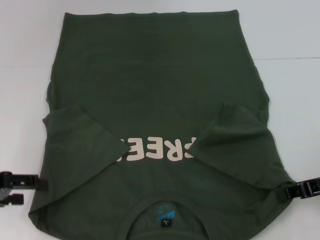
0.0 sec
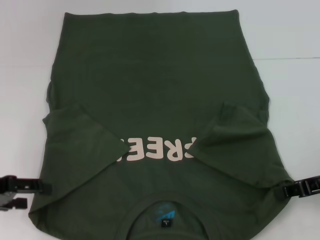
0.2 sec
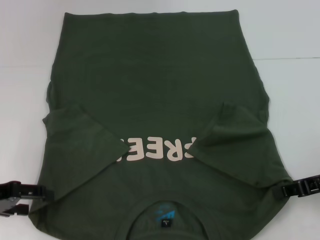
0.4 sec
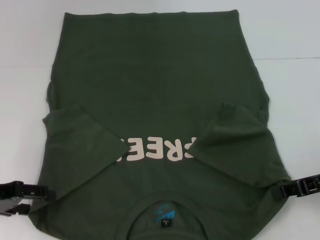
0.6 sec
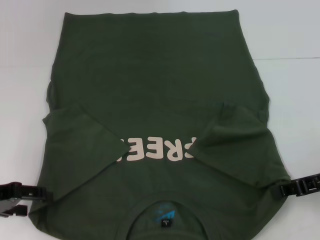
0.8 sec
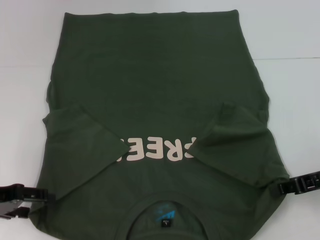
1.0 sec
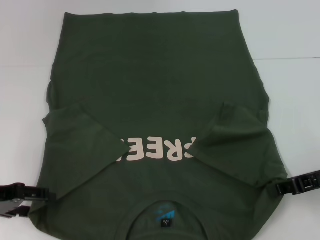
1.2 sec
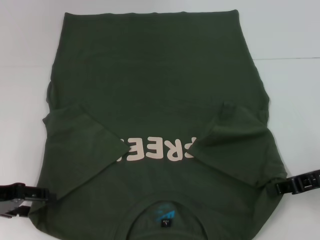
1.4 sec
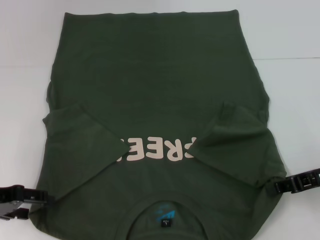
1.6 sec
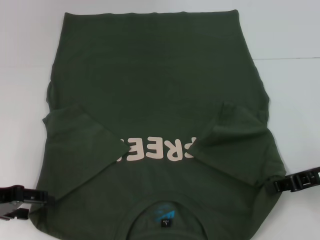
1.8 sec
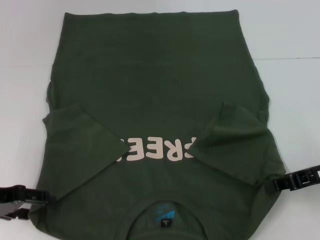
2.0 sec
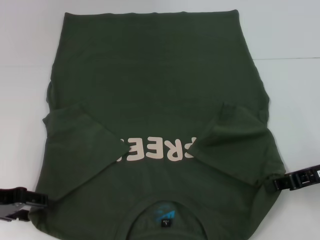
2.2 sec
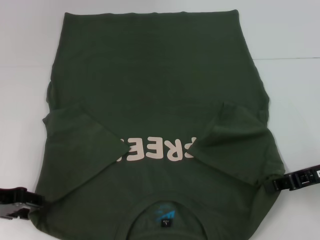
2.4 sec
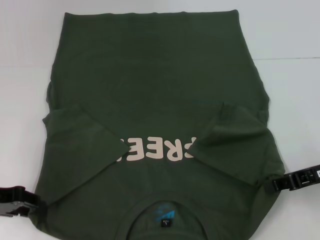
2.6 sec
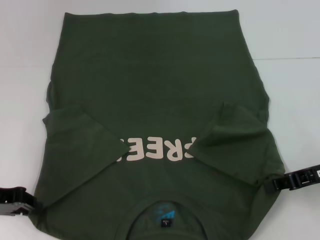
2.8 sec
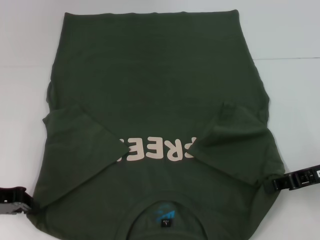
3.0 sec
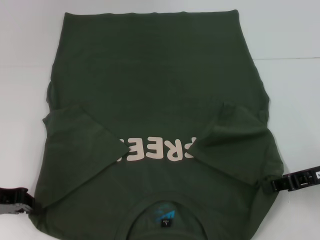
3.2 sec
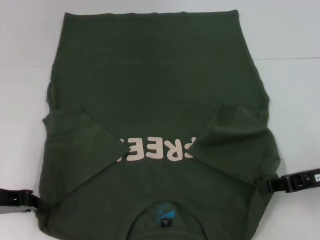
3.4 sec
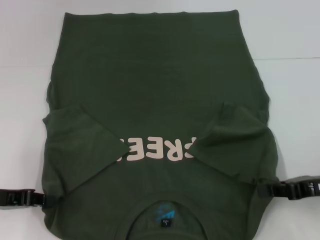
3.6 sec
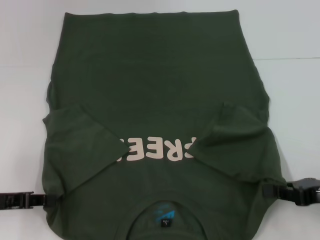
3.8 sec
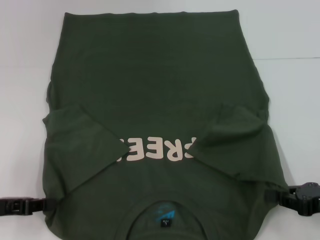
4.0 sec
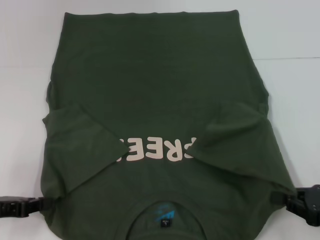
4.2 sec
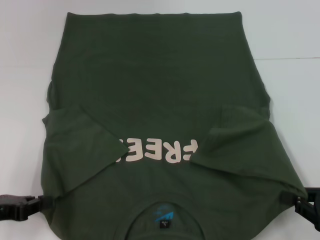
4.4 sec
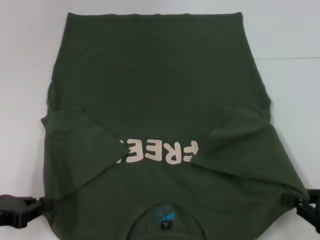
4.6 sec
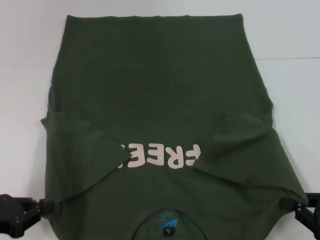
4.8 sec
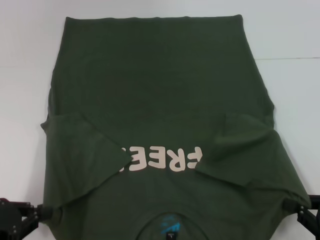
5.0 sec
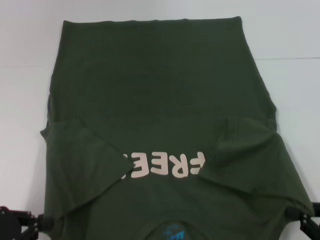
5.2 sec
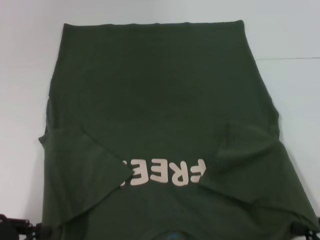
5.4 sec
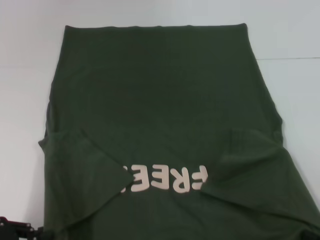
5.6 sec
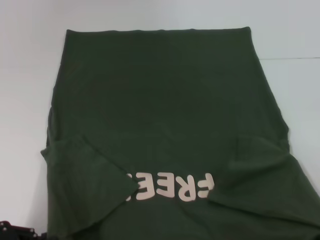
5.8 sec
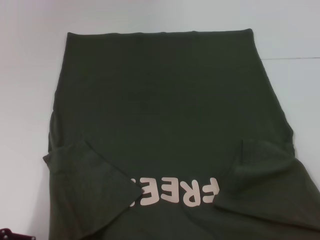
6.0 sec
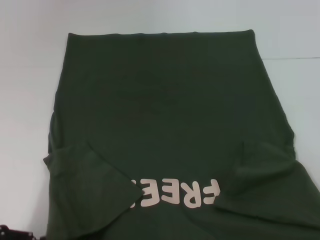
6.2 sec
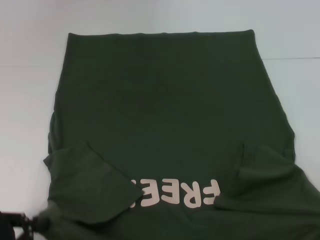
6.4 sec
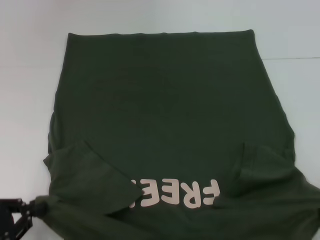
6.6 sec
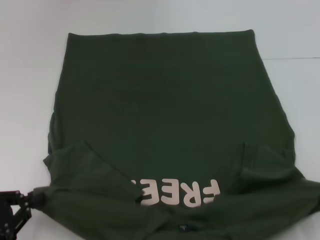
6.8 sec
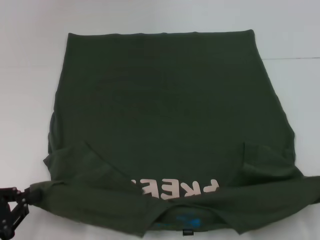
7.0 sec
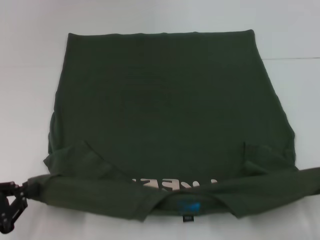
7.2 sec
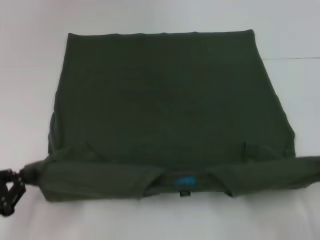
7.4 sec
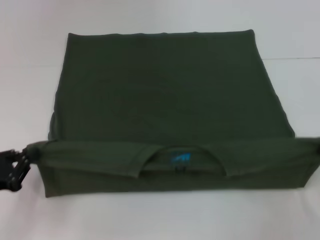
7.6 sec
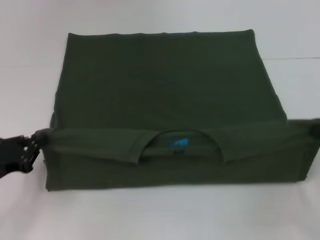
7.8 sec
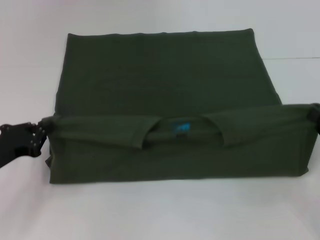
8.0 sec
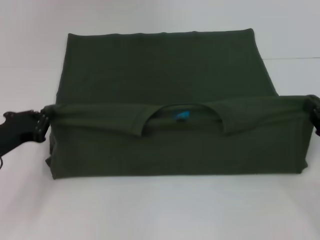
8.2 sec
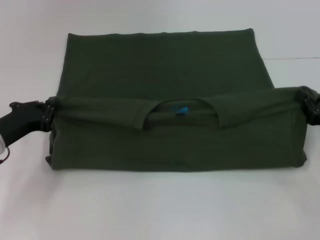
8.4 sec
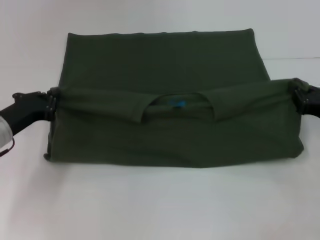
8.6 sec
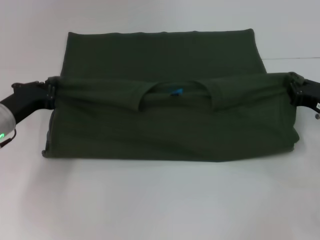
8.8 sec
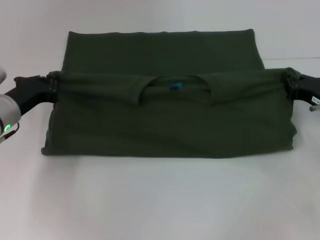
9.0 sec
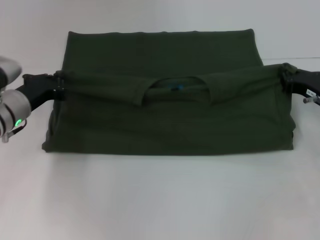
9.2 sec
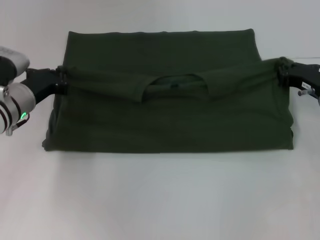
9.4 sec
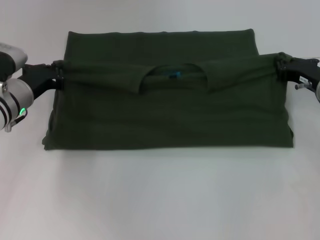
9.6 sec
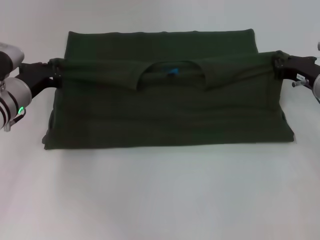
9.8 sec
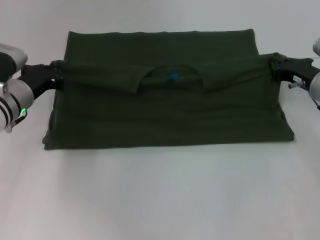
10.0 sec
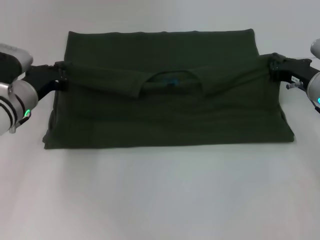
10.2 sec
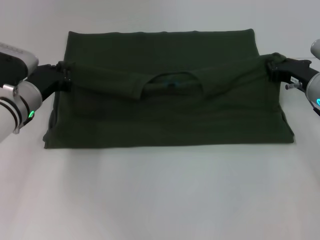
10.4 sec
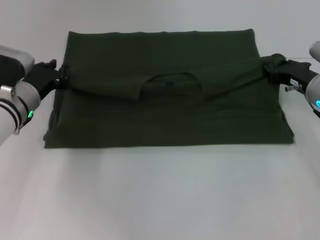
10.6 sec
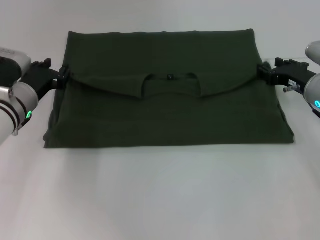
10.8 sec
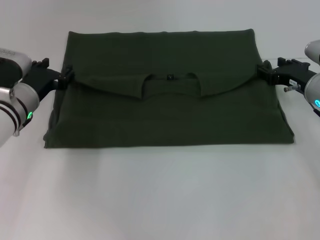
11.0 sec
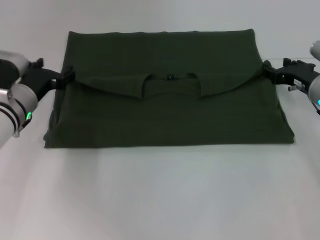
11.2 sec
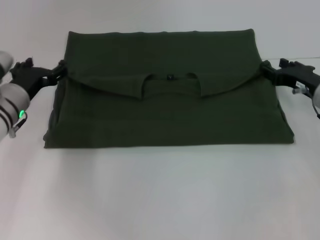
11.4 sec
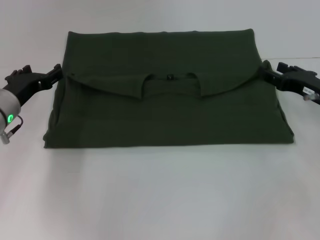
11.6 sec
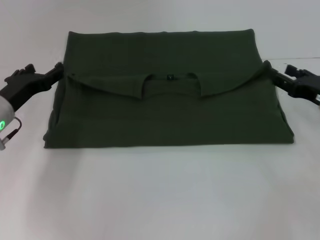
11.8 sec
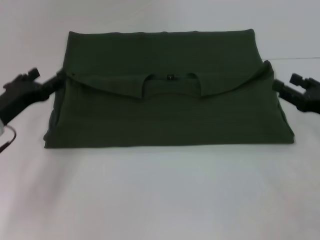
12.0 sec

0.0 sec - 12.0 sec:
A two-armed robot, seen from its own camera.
Step, 0.0 sec - 3.6 sec: Grab the bottom left corner with your left hand.
Step, 3.8 sec - 11.2 sec: Fold the clothes with your left hand.
Step, 3.8 sec - 11.2 sec: Fold the clothes with your right hand.
0.0 sec - 1.6 sec: The grippers stay close to where they were, moving slightly.
1.6 sec - 3.0 sec: The left gripper closes its fingers.
3.0 sec - 4.4 sec: The left gripper shifts by some 5 cm, while the right gripper heads backward and downward, covering about 10 cm.
4.4 sec - 6.0 sec: The right gripper moves backward, about 10 cm, while the left gripper shifts approximately 10 cm backward.
6.0 sec - 7.6 sec: The left gripper is displaced forward by some 5 cm. Meanwhile the right gripper is displaced forward by roughly 10 cm.
7.6 sec - 9.0 sec: The left gripper shifts approximately 15 cm forward and to the right; the right gripper goes about 20 cm forward.
9.0 sec - 10.4 sec: The right gripper changes place by about 5 cm.
10.4 sec - 12.0 sec: Both grippers travel together backward, some 10 cm. The left gripper opens up. The right gripper opens up.

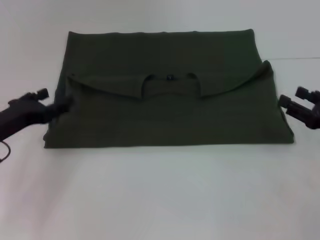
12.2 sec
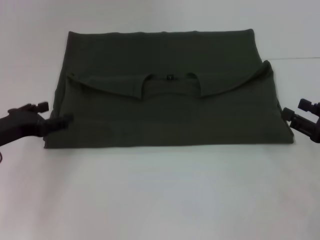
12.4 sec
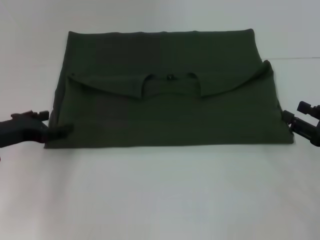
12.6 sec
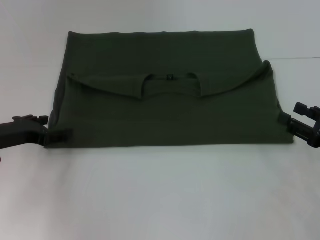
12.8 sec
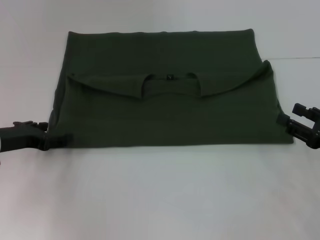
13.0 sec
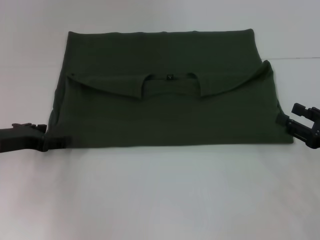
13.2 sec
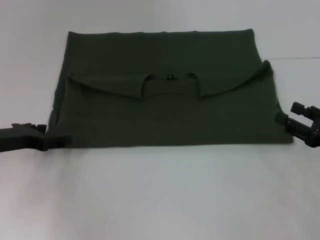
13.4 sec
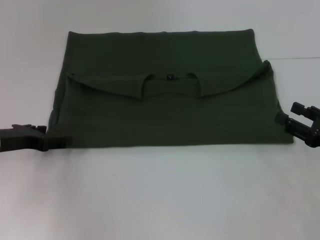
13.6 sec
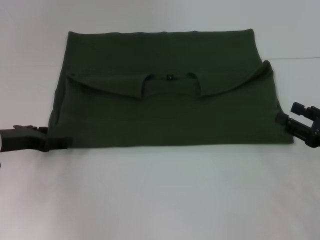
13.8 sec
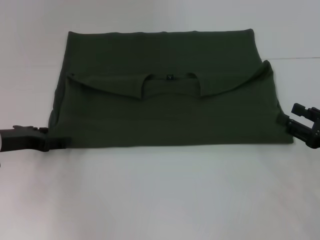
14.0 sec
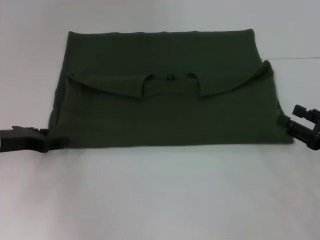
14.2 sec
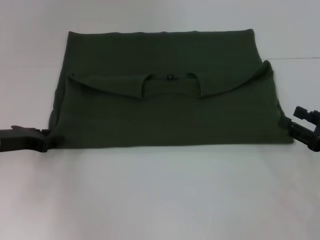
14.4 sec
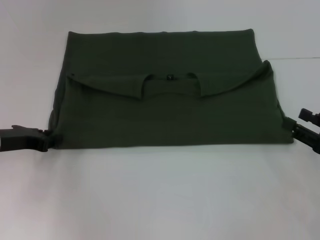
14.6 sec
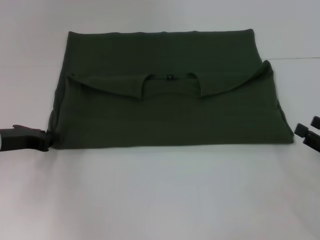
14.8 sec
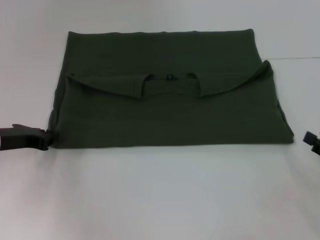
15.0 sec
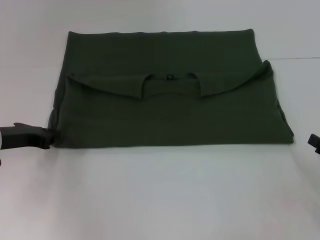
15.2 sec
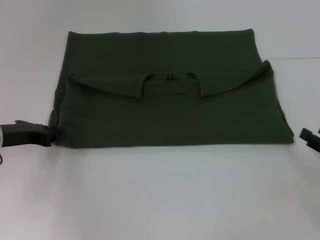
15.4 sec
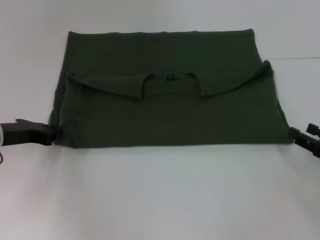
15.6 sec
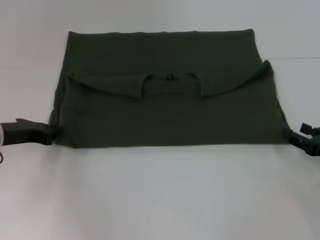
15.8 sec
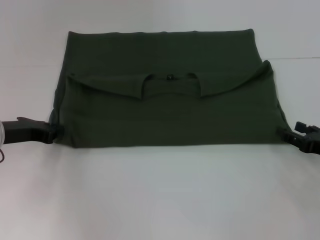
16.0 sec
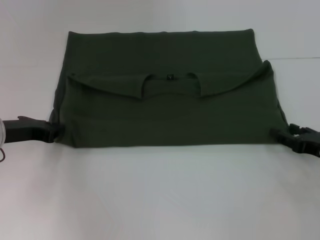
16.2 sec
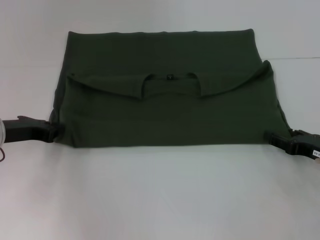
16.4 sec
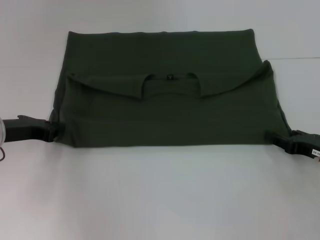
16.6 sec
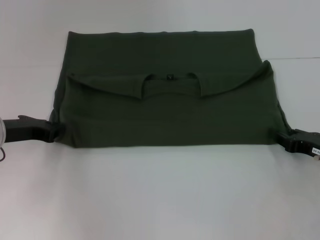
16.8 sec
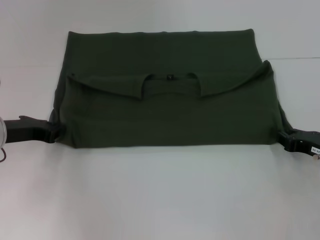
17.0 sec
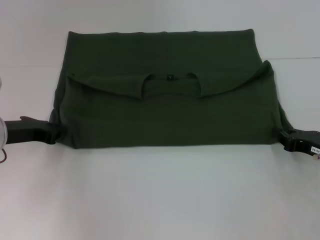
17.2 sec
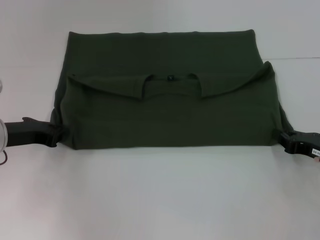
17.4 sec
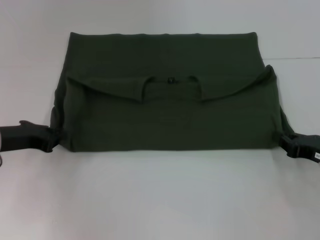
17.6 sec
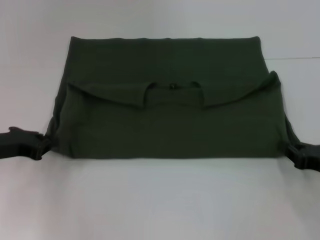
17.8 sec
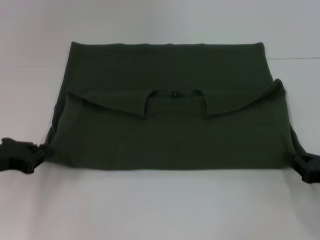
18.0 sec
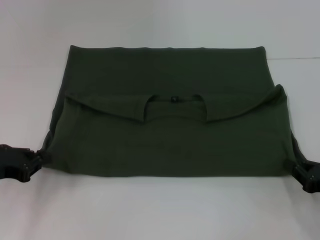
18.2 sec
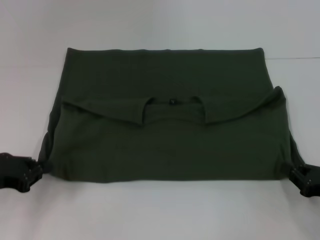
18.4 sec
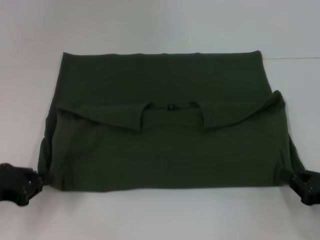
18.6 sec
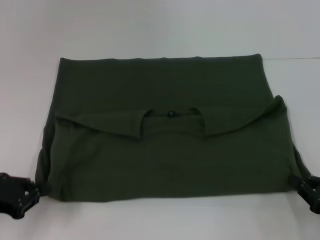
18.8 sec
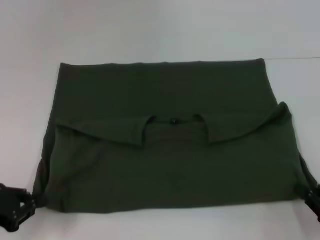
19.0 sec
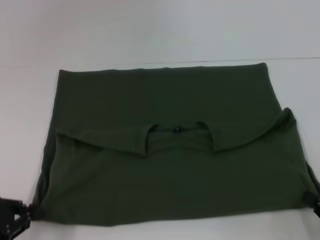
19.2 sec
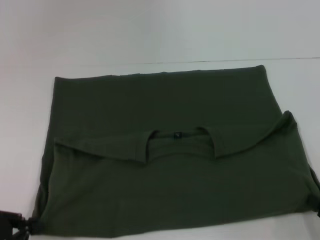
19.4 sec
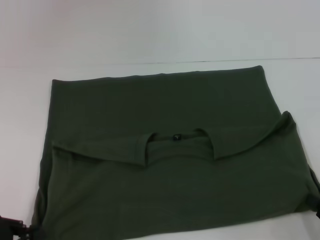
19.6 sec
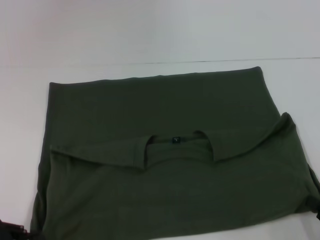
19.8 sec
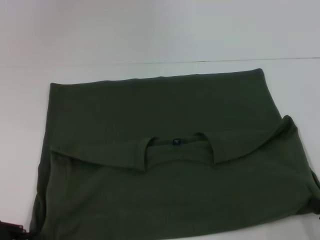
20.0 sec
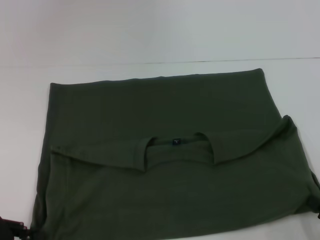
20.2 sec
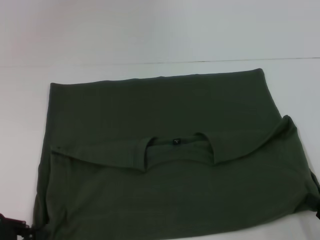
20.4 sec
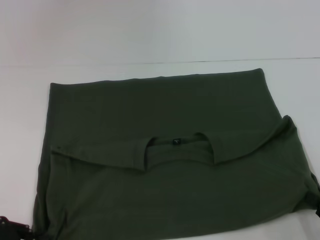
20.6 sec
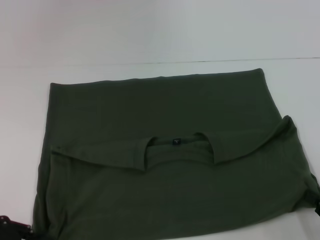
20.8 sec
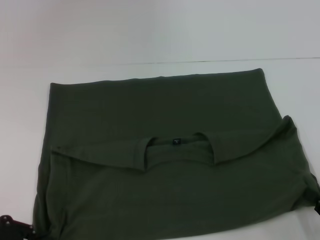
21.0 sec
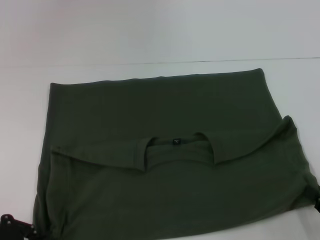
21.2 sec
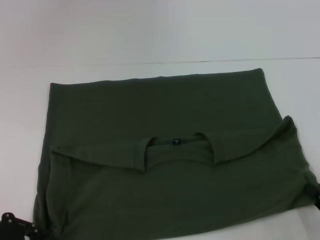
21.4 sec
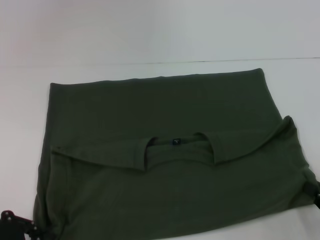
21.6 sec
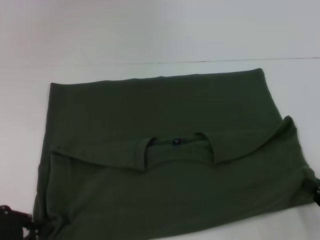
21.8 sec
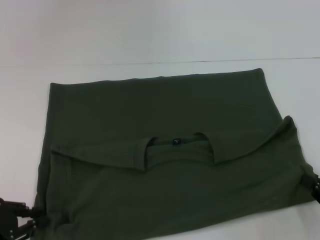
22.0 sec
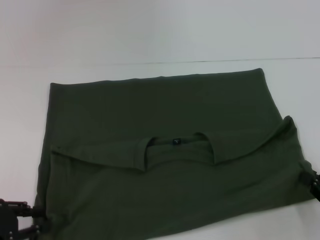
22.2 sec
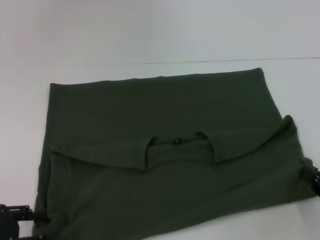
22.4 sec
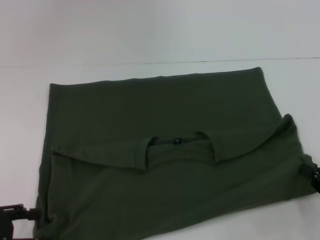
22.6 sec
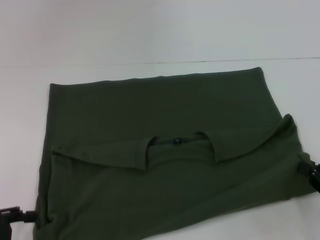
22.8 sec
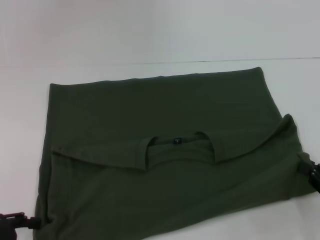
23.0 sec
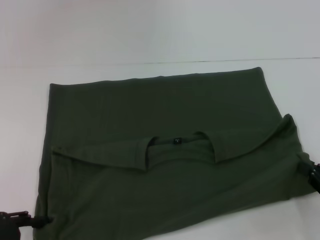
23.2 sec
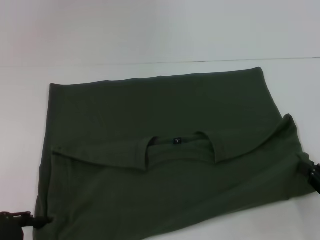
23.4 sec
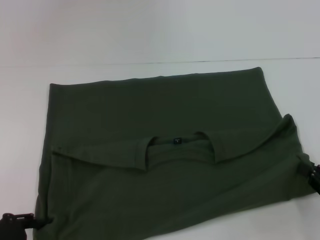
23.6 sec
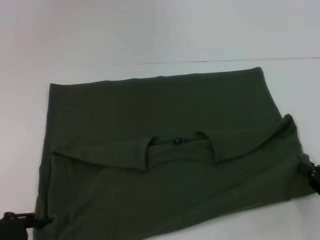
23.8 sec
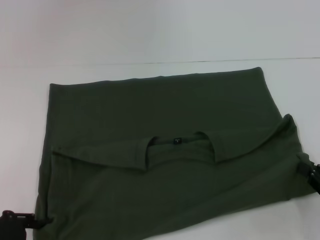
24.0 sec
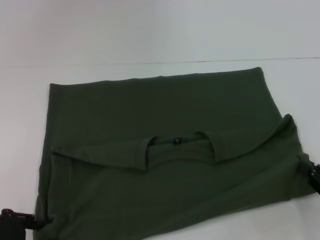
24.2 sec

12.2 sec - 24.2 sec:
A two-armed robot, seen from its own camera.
Step, 12.2 sec - 19.8 sec: Pull the clothes with your left hand.
Step, 12.2 sec - 19.8 sec: Pull the clothes with your right hand.
13.8 sec - 15.2 sec: The left gripper closes its fingers, while the right gripper changes place by some 5 cm.
15.2 sec - 16.6 sec: The right gripper shifts roughly 10 cm forward and to the left.
16.6 sec - 18.2 sec: The two grippers go approximately 5 cm backward. The right gripper closes.
18.2 sec - 19.8 sec: Both grippers travel together backward, some 10 cm.
19.8 sec - 21.2 sec: The grippers stay close to where they were, moving slightly.
21.2 sec - 22.6 sec: The left gripper opens.
22.6 sec - 24.2 sec: The grippers move only a little.
